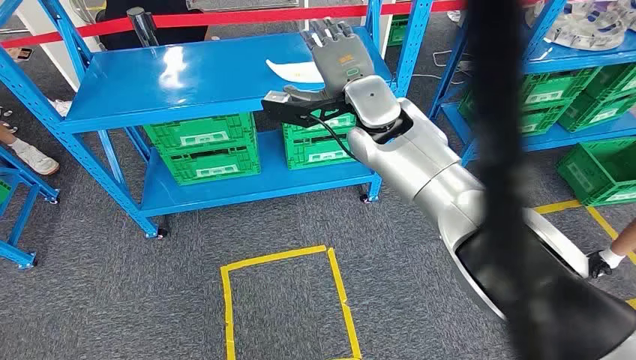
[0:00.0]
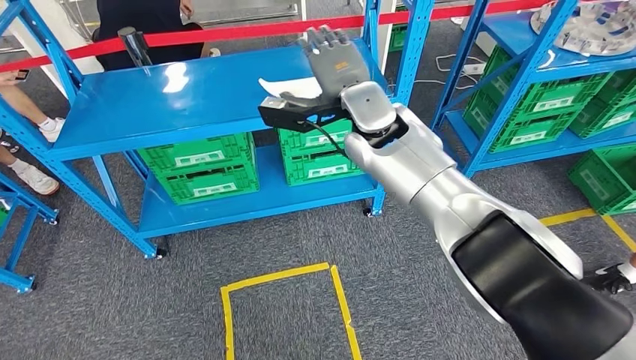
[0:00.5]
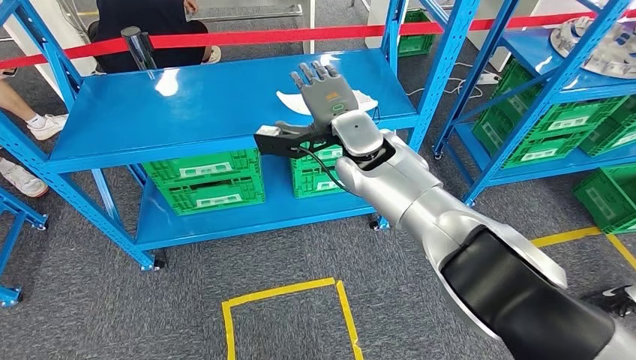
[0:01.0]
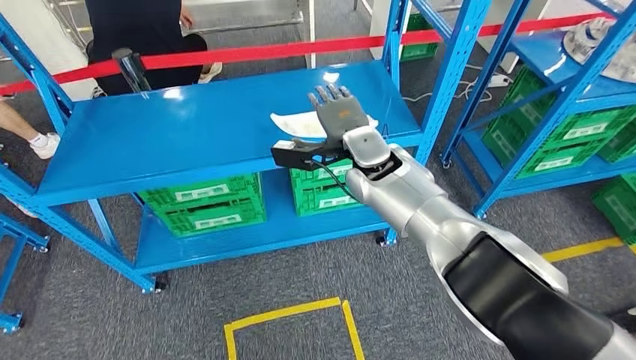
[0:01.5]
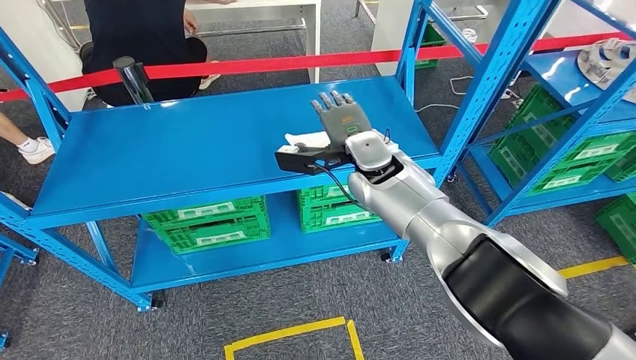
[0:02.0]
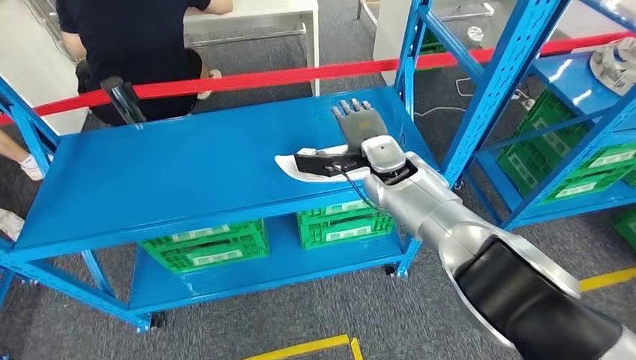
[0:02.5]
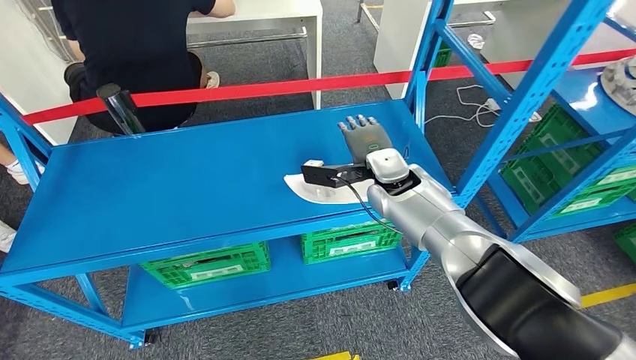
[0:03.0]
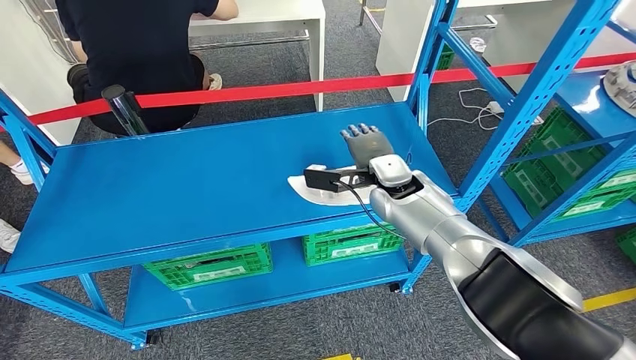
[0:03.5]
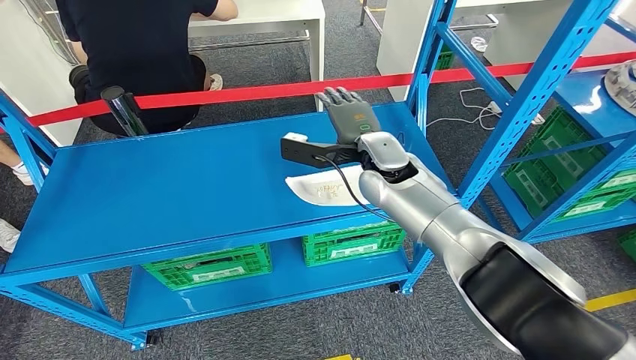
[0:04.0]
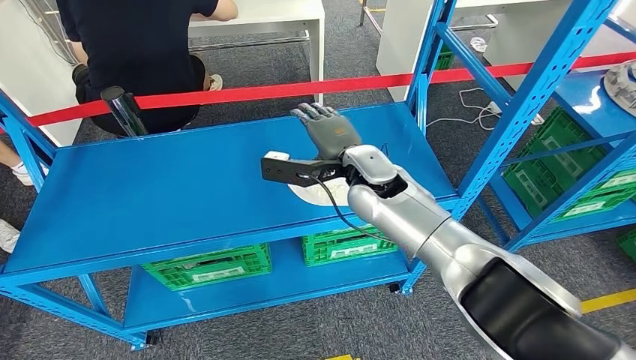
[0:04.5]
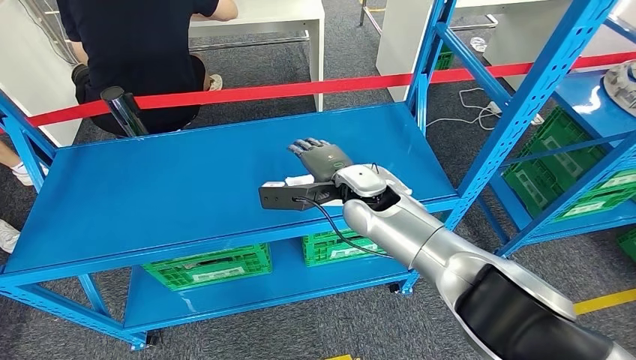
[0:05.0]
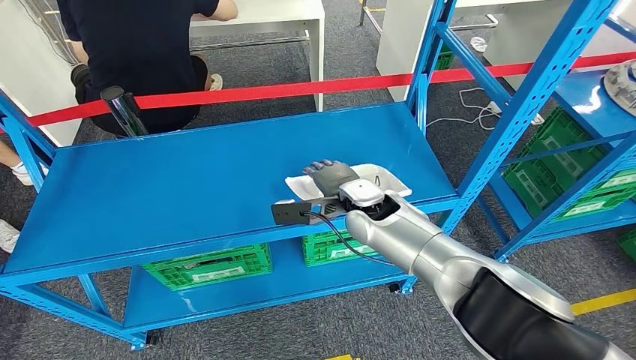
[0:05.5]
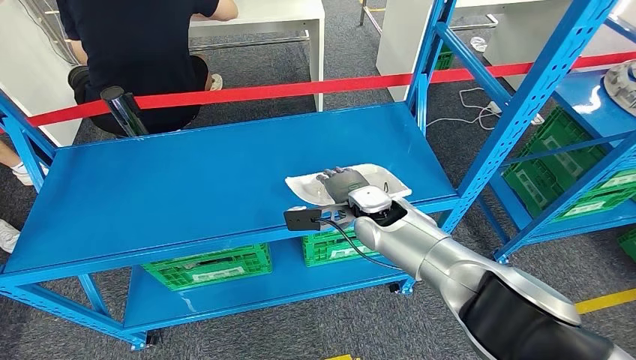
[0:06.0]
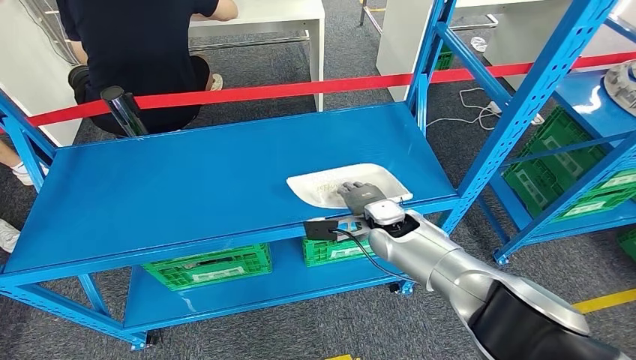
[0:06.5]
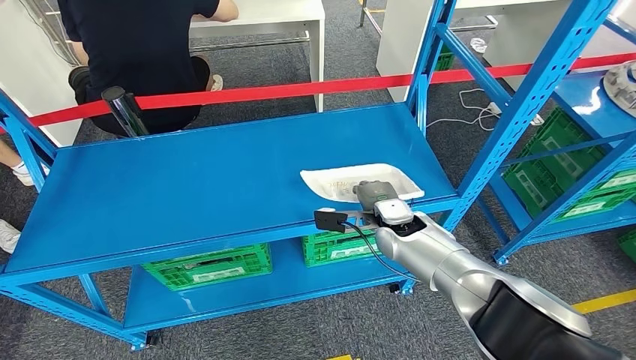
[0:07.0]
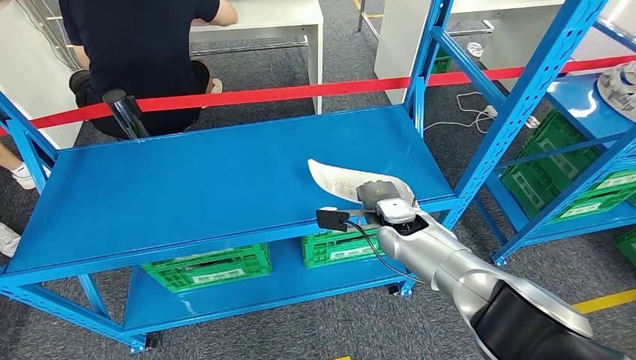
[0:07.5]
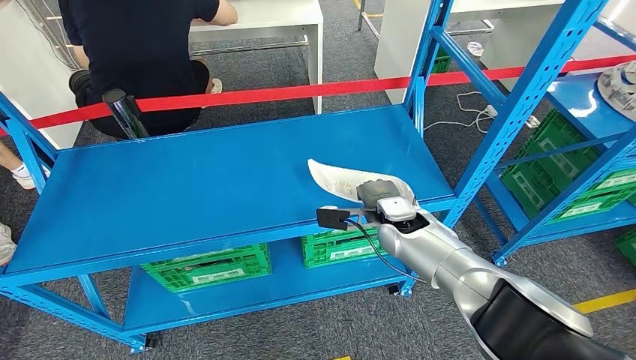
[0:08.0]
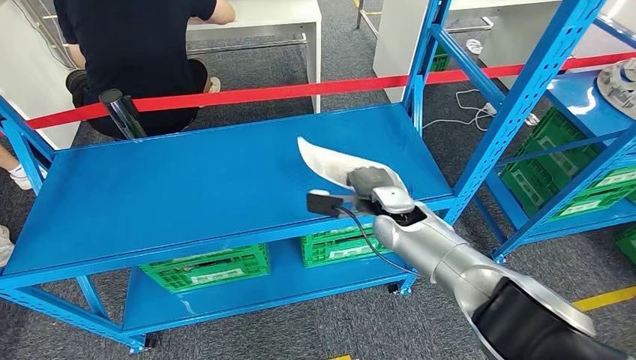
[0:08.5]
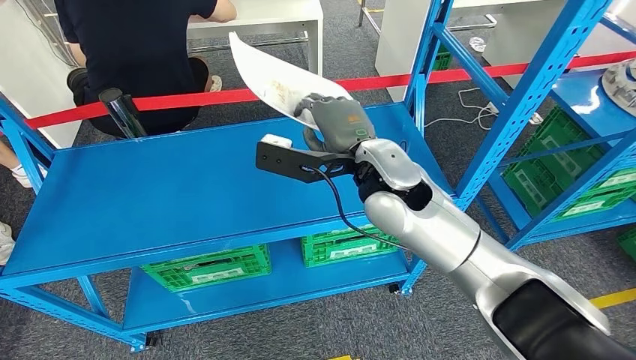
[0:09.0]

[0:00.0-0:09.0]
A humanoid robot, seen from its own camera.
Step, 0:00.0 to 0:09.0: Pick up the small parts from the shelf.
0:04.5 to 0:07.0: The right hand travels downward and to the right by approximately 15 cm.
0:07.0 to 0:09.0: The right hand heads upward, covering about 20 cm.

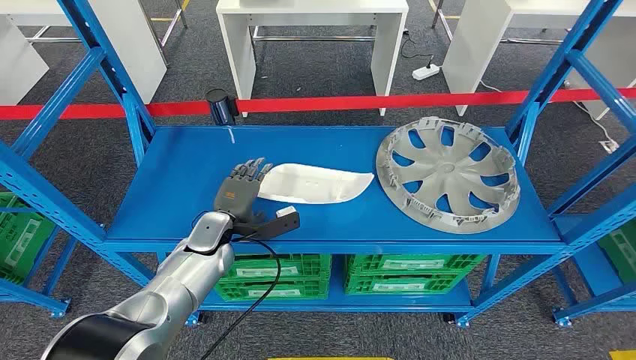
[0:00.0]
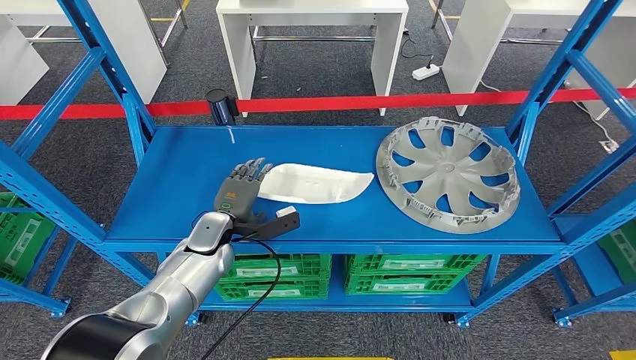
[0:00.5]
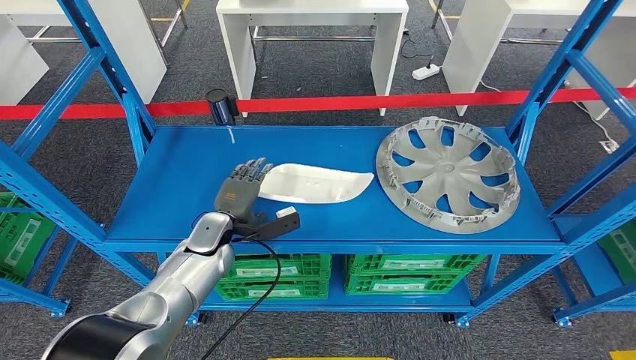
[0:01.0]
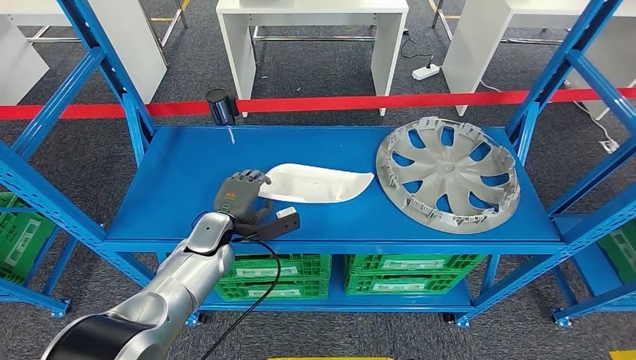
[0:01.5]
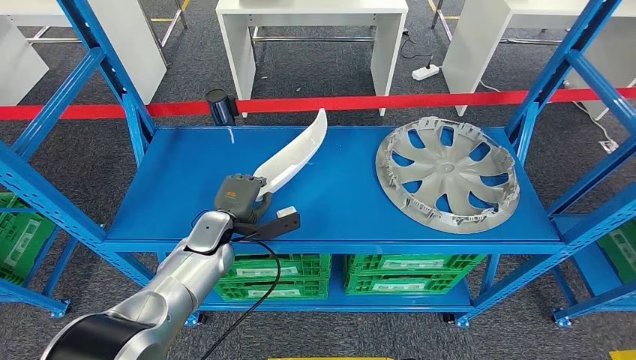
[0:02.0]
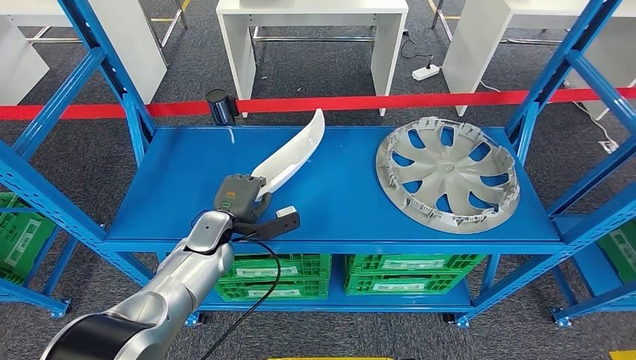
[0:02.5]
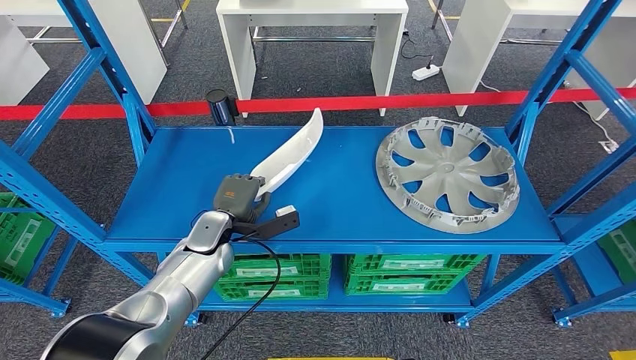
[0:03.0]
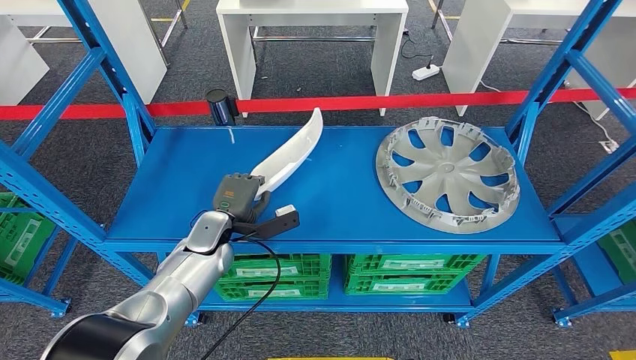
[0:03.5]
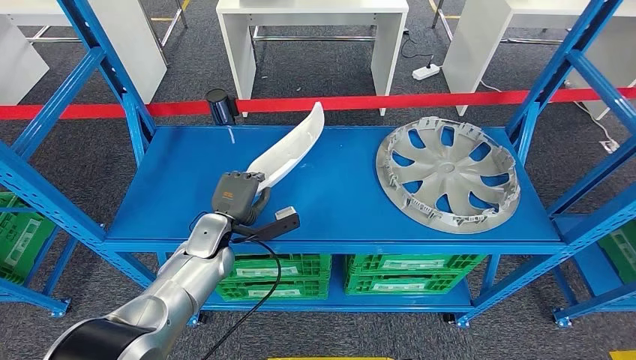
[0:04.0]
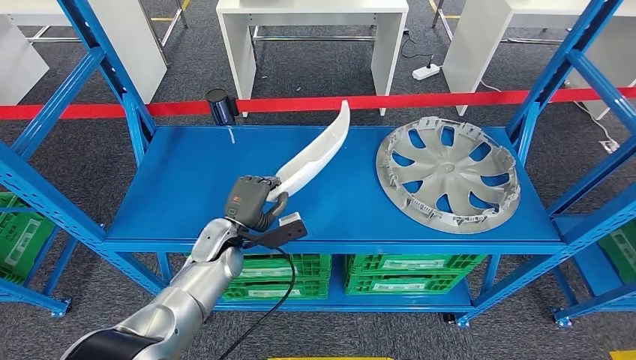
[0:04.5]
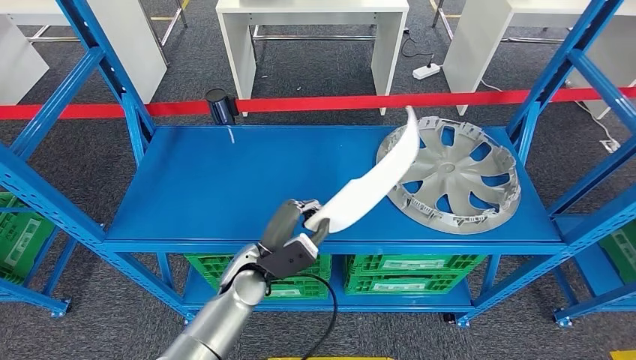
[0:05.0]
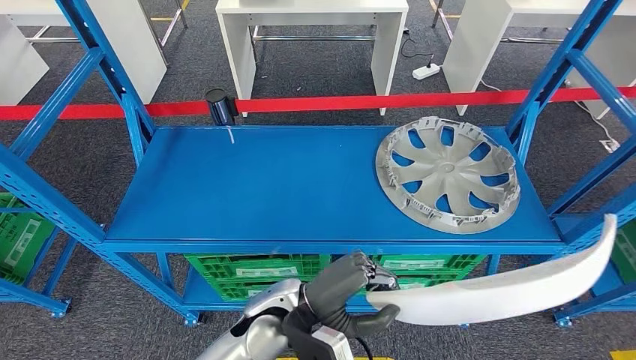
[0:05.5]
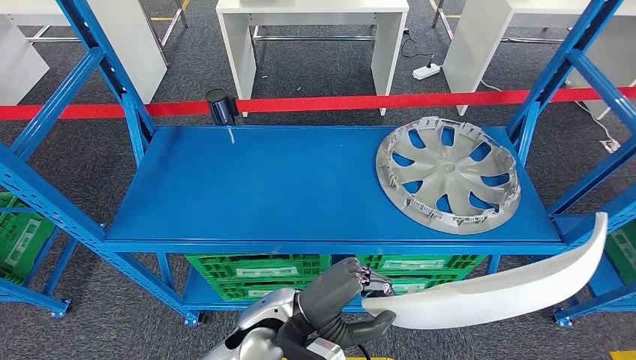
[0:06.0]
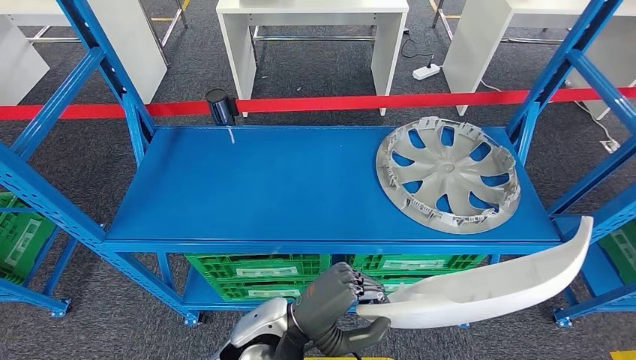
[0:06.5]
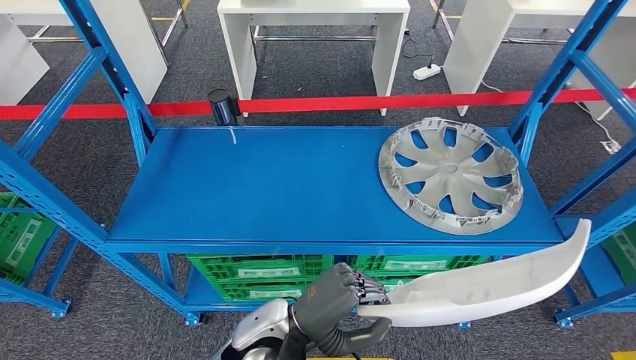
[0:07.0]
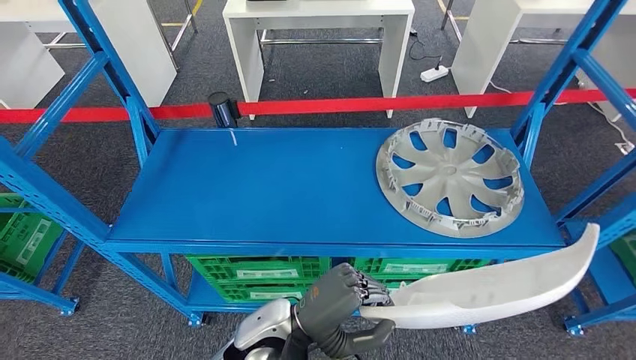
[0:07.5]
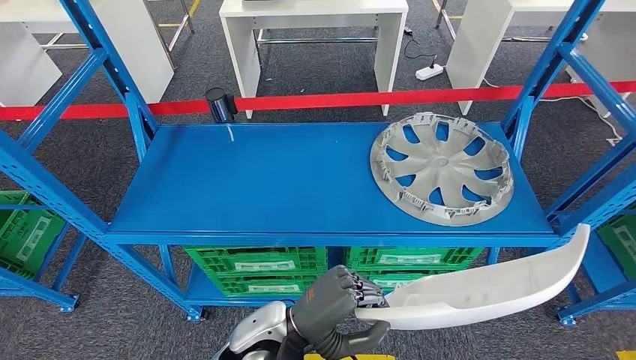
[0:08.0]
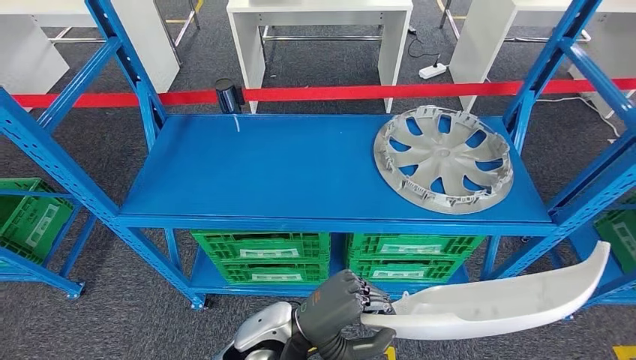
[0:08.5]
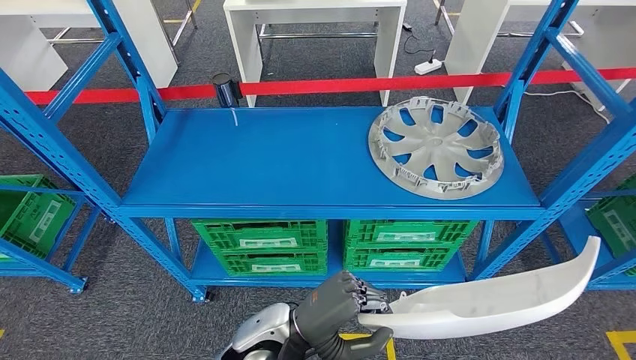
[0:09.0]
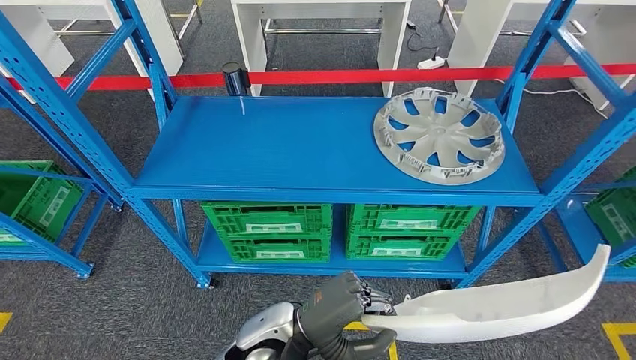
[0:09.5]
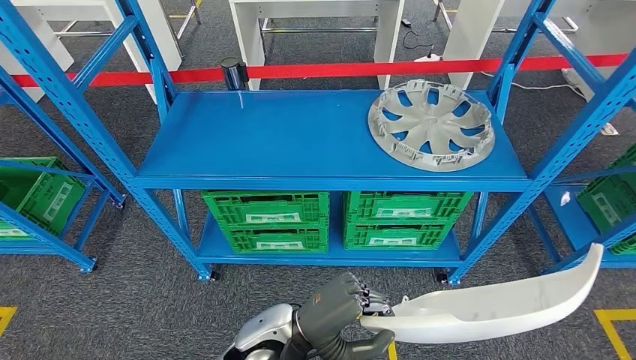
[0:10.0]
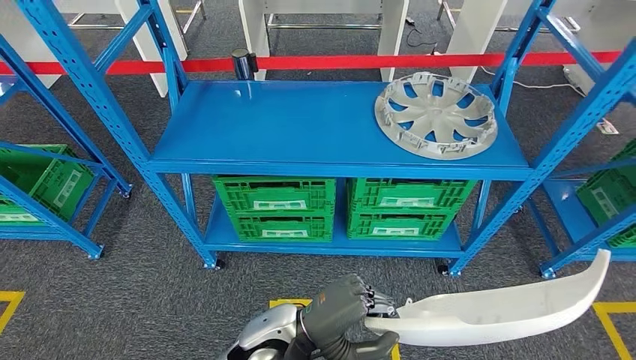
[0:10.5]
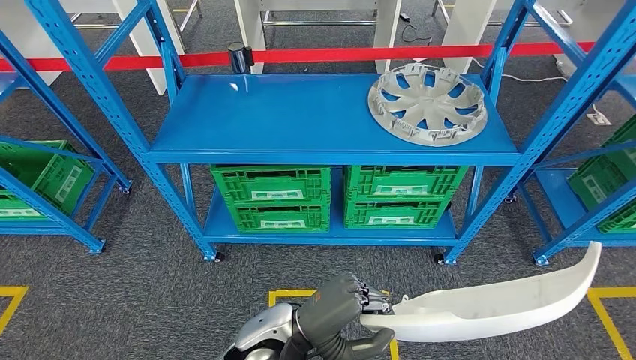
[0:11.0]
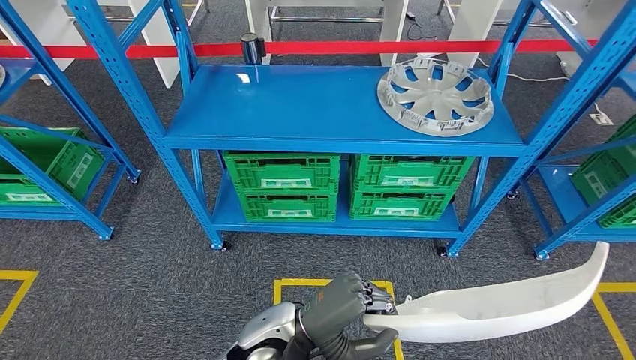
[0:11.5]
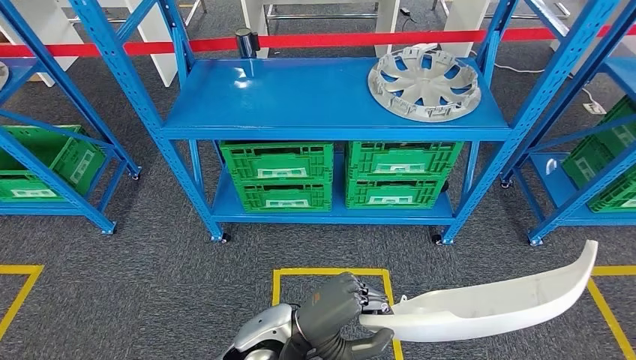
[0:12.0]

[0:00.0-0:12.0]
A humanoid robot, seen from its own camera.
Step, 0:00.0 to 0:06.0: Pick up the small parts from the shelf.
0:02.0 to 0:04.0: The hands move only a little.
0:04.0 to 0:06.0: The left hand heads backward, to the right and upward, covering about 15 cm.
